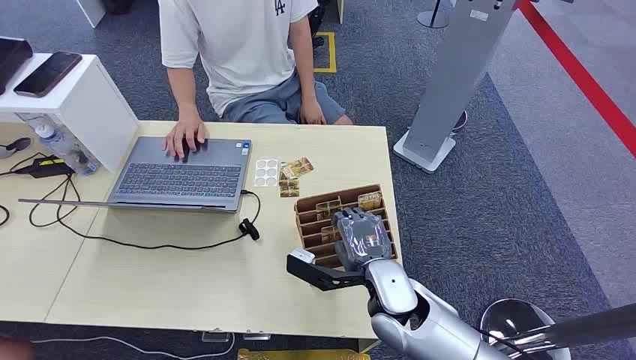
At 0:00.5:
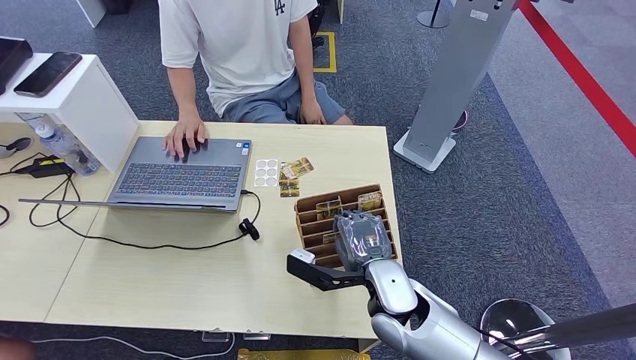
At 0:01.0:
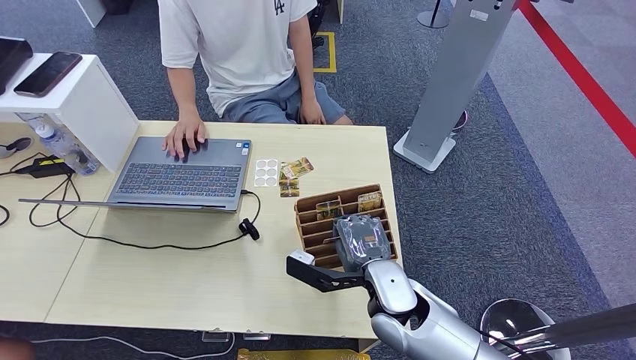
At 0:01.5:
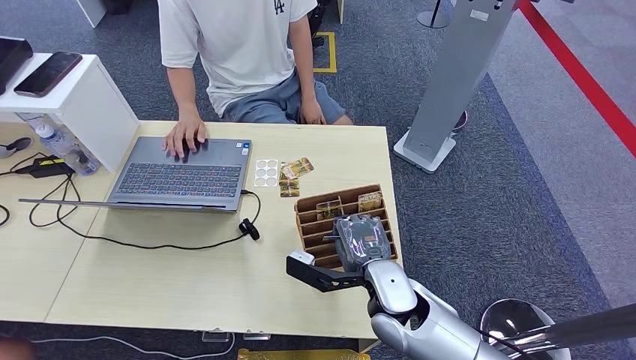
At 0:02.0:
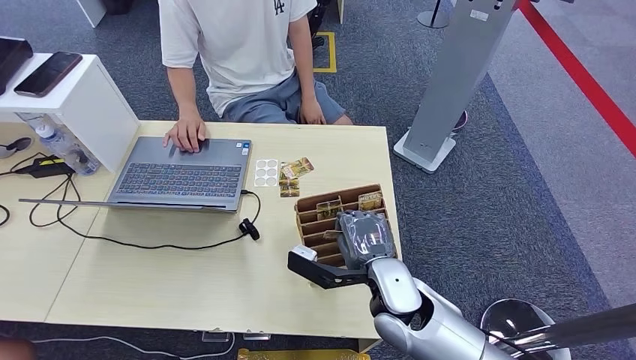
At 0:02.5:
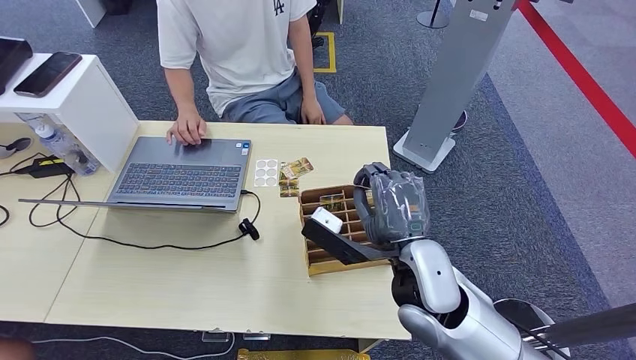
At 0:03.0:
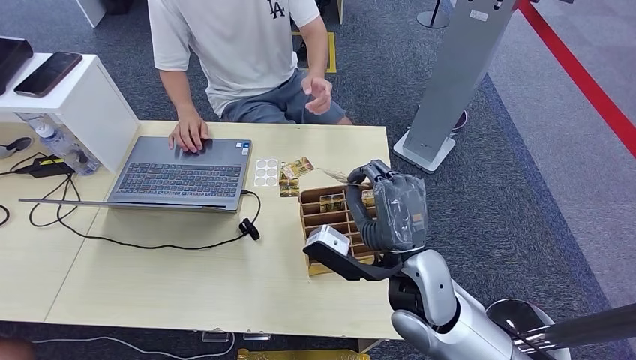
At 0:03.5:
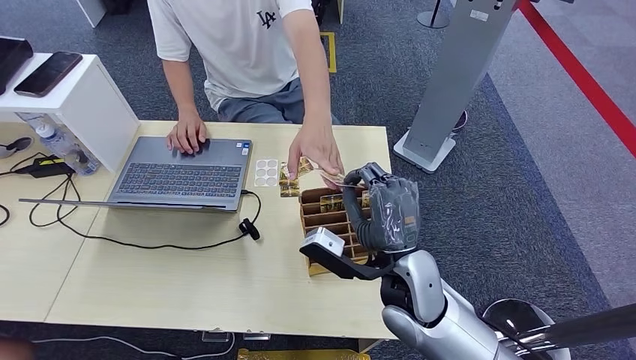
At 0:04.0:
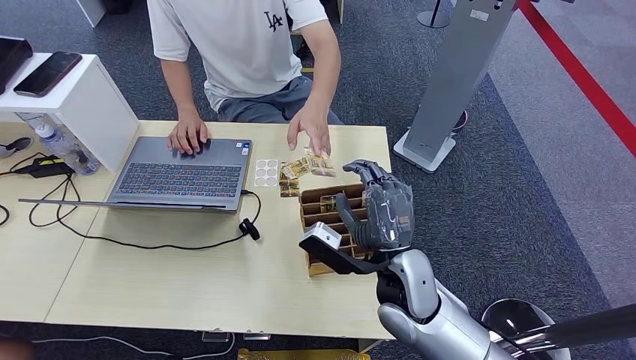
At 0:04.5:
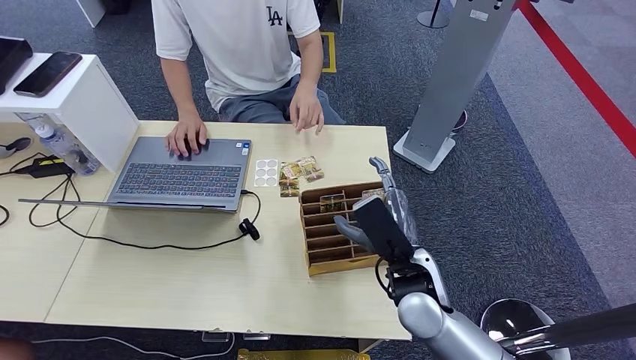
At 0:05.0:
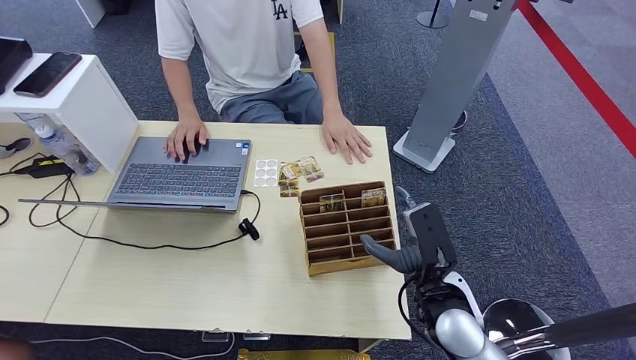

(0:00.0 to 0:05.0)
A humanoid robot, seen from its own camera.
Step, 0:00.0 - 0:02.5: Pick up the key card from the card box.
Step, 0:03.0 - 0:05.0: Hand the key card to the target.
0:02.5 - 0:05.0: The right hand shifts some 10 cm downward and to the right.

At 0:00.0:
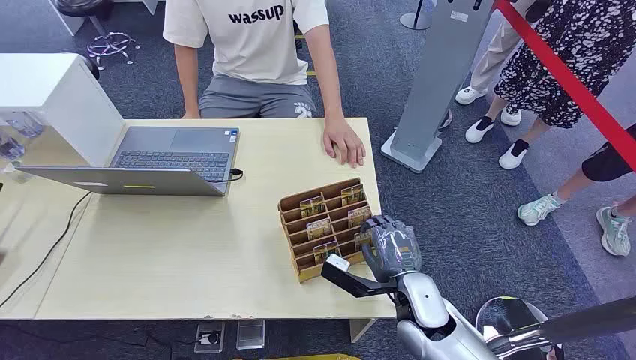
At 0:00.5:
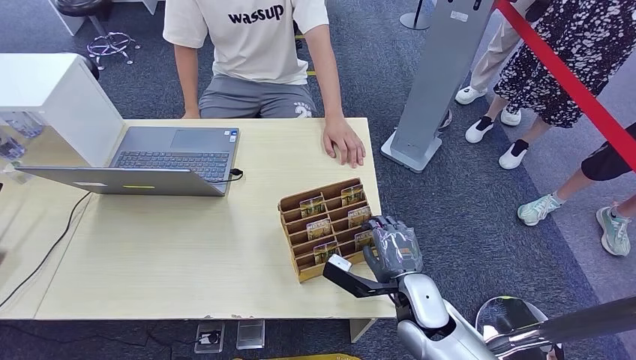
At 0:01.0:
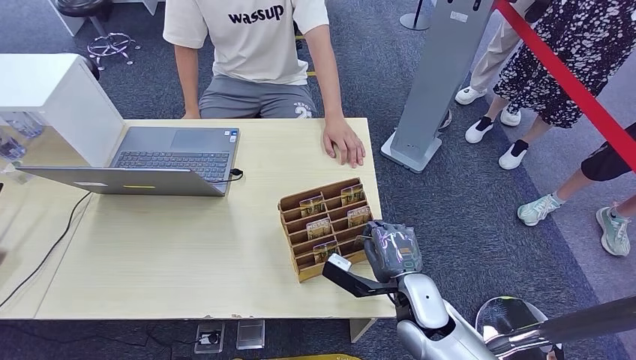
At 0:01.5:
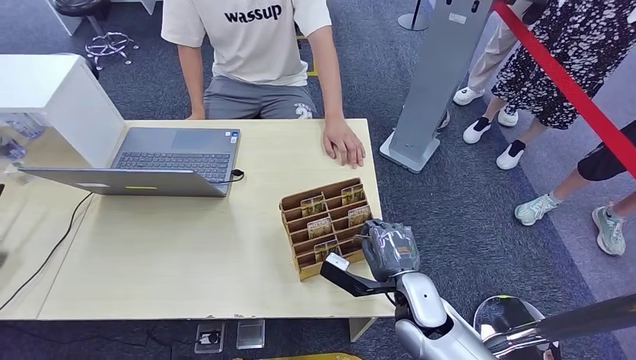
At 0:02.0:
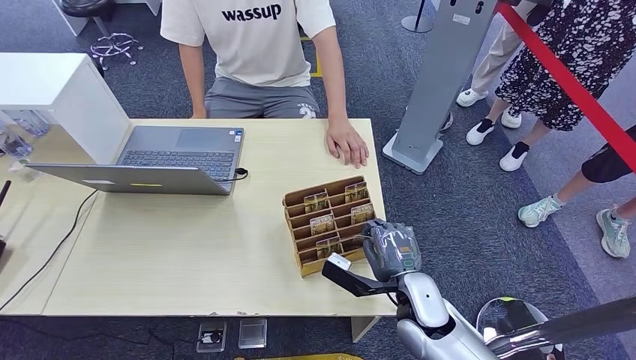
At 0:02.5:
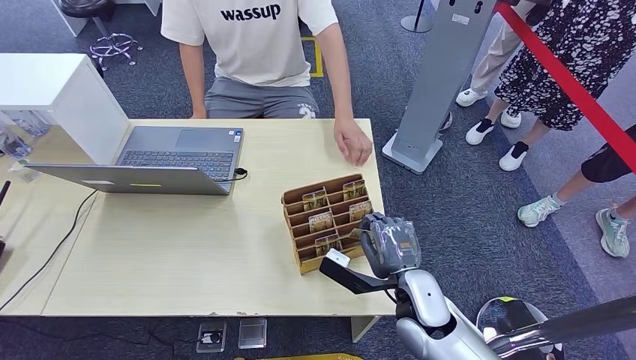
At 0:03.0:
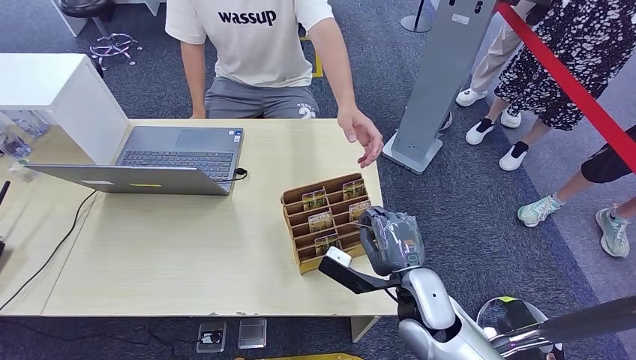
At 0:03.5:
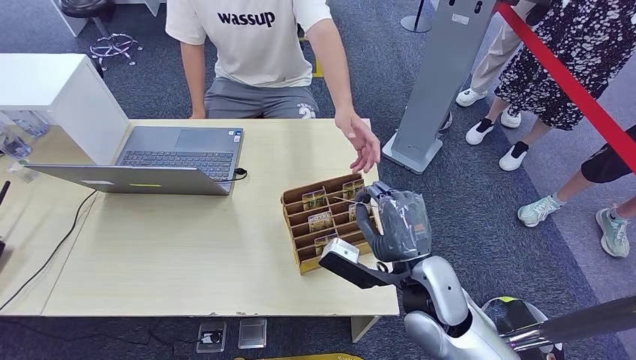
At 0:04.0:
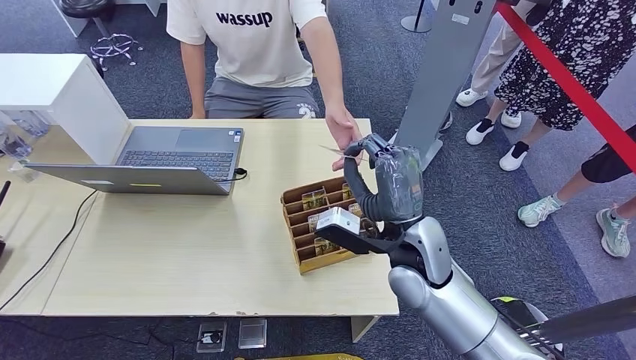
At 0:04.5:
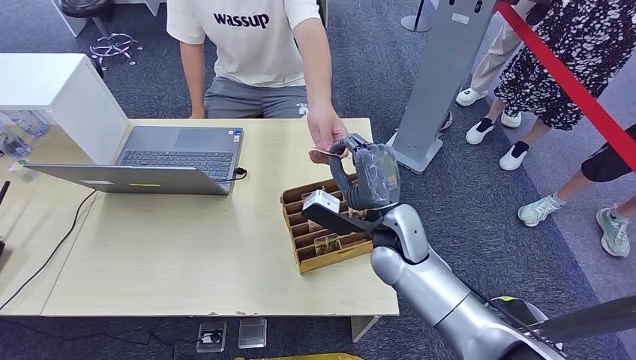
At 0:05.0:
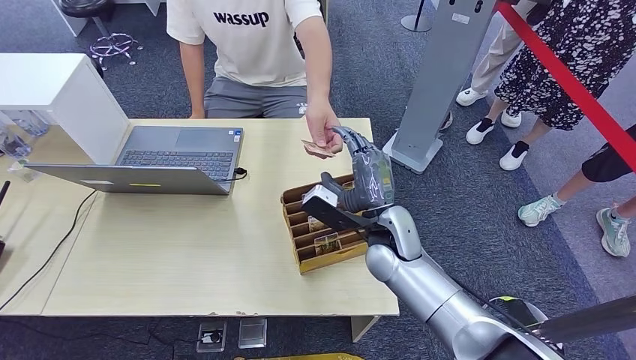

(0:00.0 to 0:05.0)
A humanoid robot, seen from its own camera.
Step, 0:00.0 - 0:02.5: Pick up the key card from the card box.
Step, 0:03.0 - 0:05.0: Hand the key card to the target.
0:02.5 - 0:05.0: The right hand heads forward and upward, covering some 10 cm.
